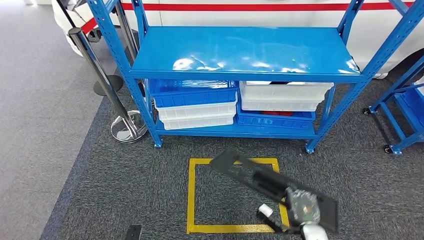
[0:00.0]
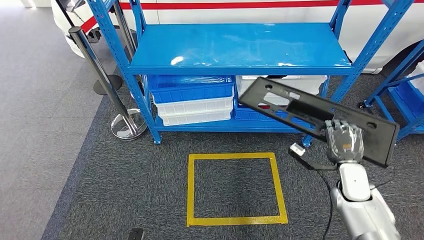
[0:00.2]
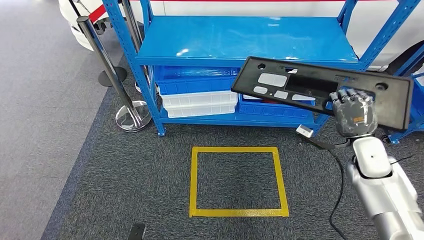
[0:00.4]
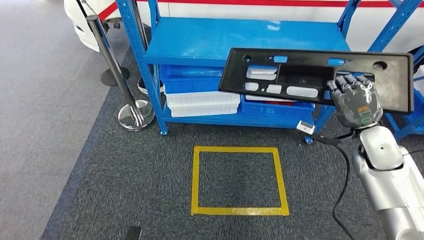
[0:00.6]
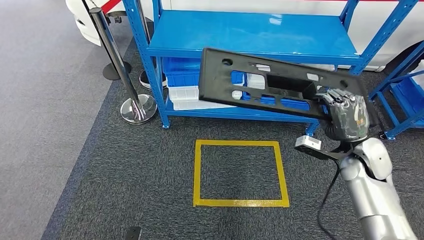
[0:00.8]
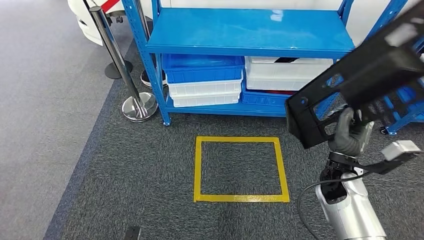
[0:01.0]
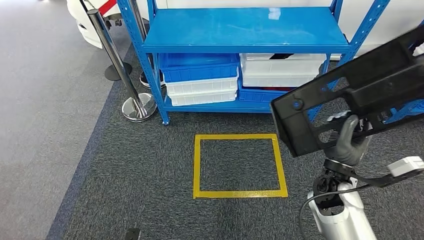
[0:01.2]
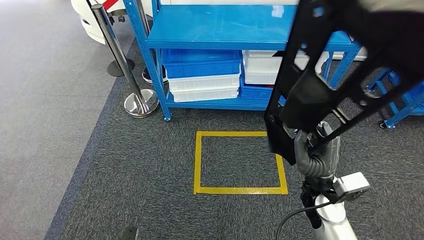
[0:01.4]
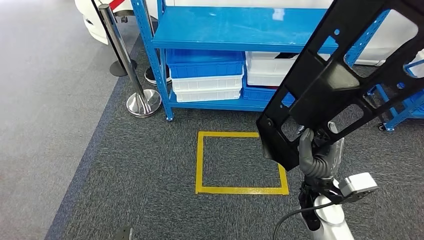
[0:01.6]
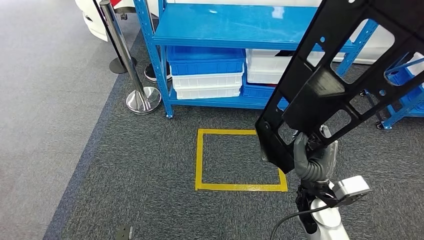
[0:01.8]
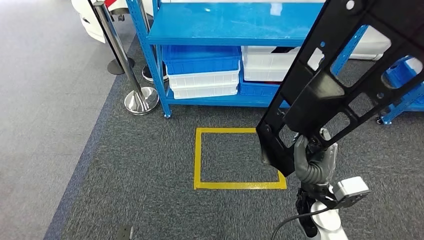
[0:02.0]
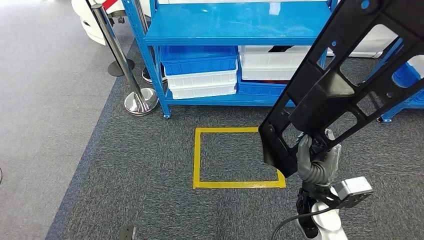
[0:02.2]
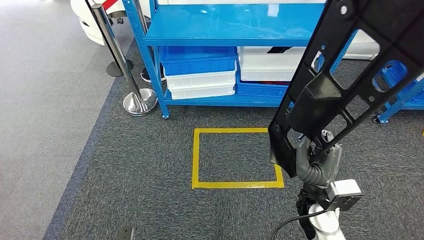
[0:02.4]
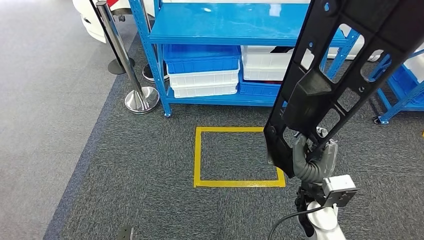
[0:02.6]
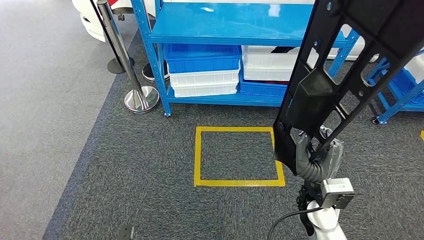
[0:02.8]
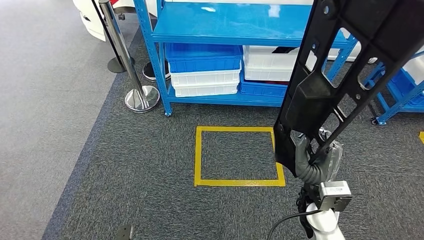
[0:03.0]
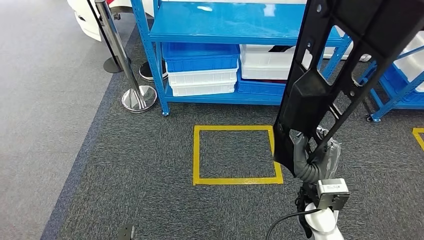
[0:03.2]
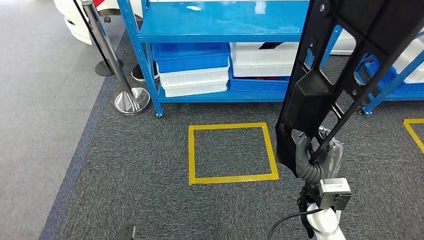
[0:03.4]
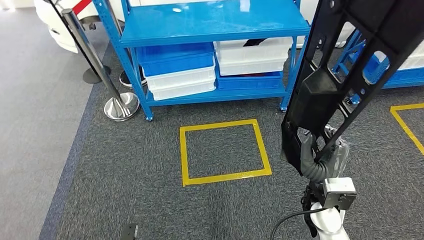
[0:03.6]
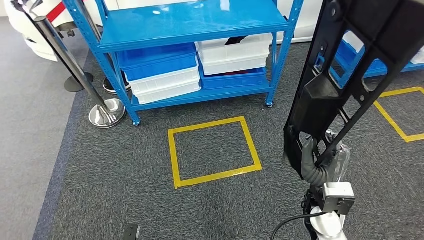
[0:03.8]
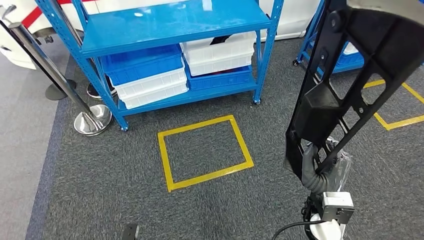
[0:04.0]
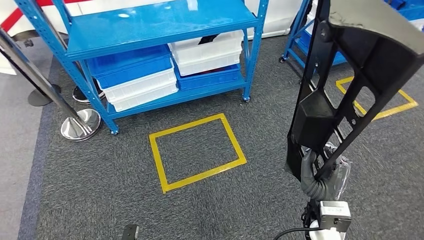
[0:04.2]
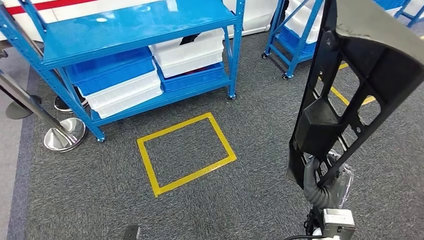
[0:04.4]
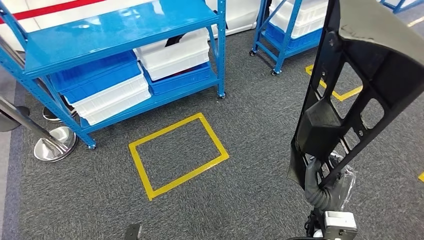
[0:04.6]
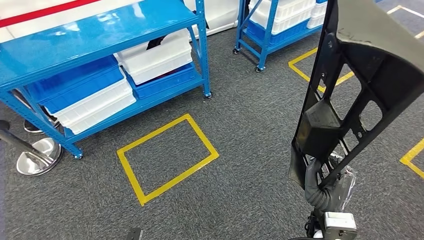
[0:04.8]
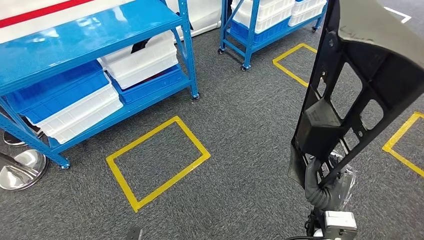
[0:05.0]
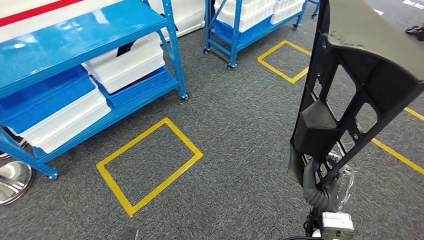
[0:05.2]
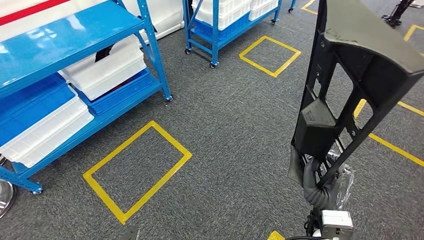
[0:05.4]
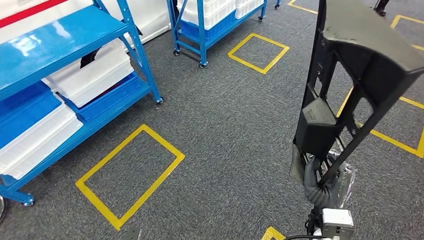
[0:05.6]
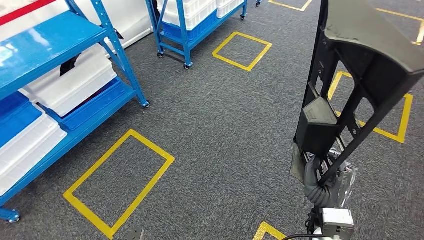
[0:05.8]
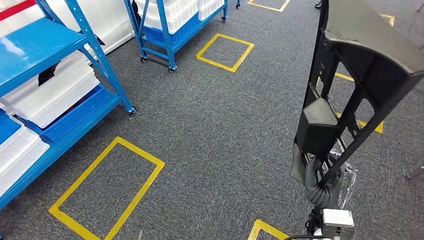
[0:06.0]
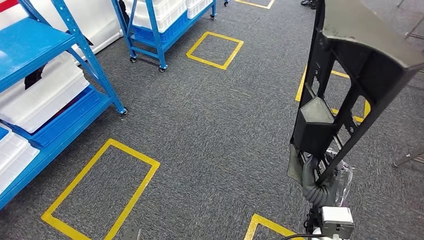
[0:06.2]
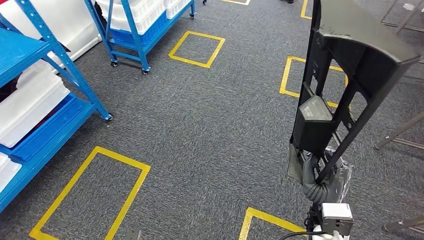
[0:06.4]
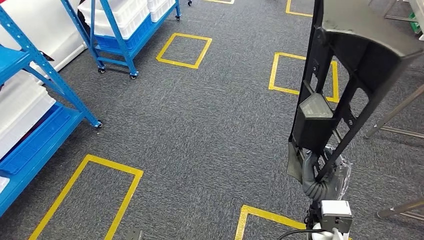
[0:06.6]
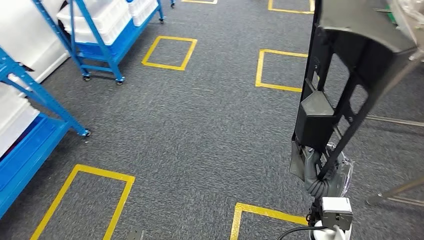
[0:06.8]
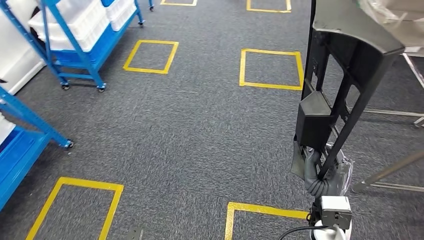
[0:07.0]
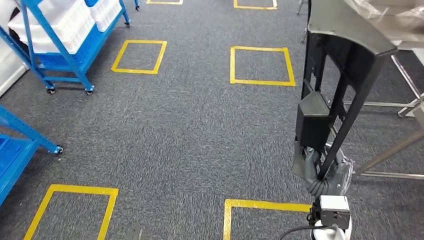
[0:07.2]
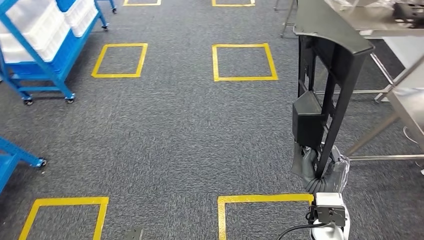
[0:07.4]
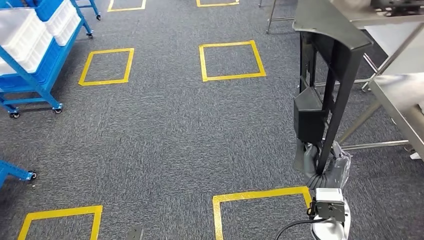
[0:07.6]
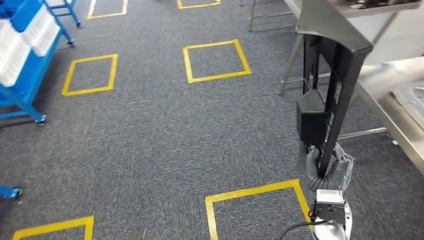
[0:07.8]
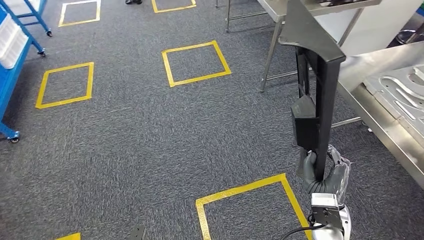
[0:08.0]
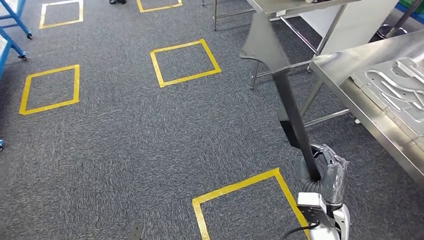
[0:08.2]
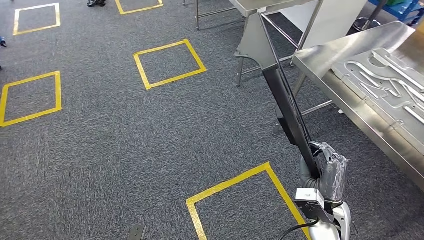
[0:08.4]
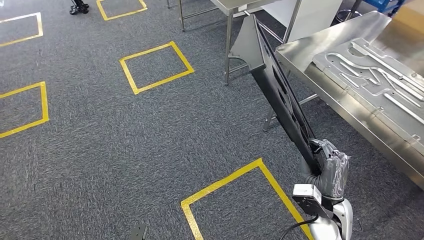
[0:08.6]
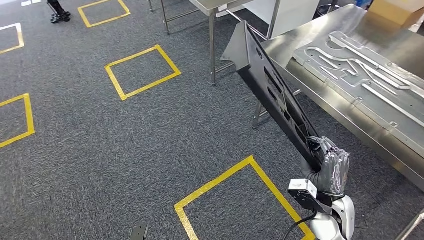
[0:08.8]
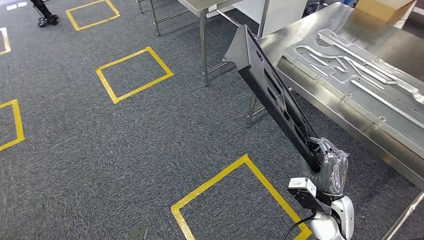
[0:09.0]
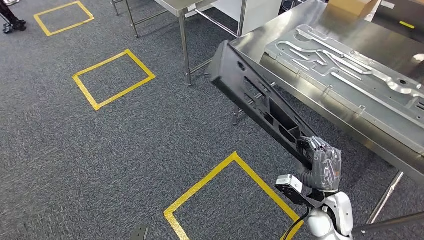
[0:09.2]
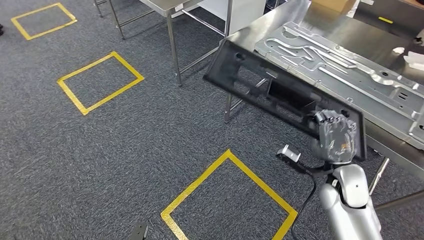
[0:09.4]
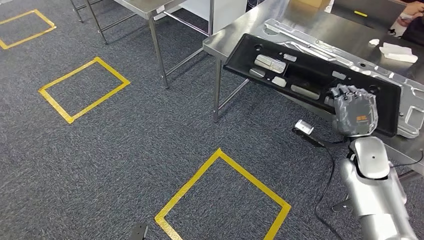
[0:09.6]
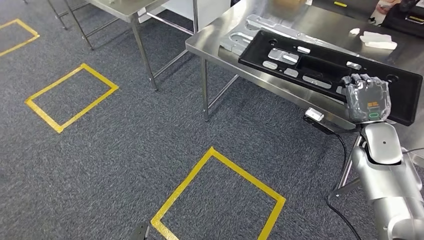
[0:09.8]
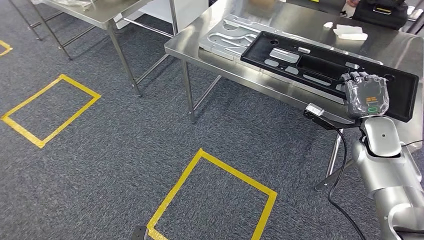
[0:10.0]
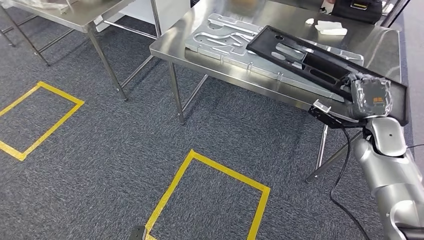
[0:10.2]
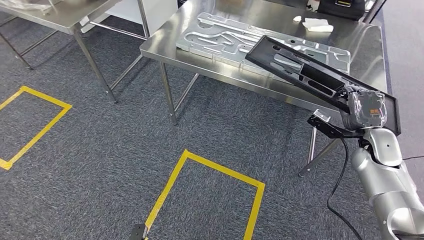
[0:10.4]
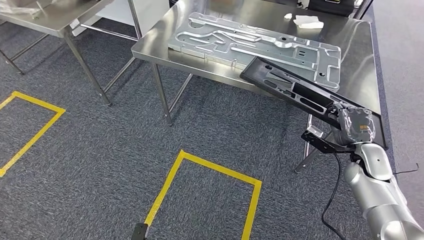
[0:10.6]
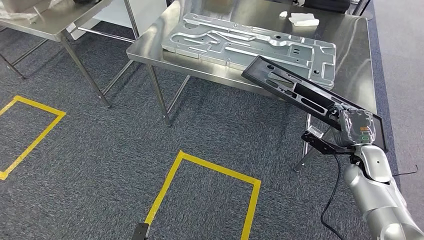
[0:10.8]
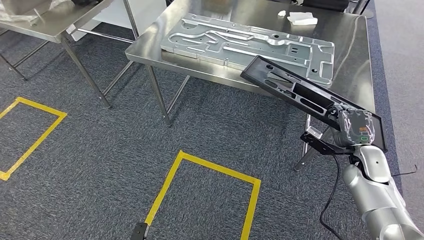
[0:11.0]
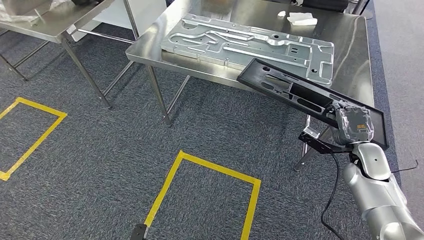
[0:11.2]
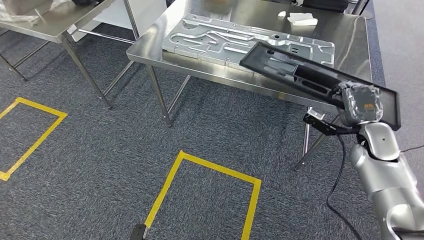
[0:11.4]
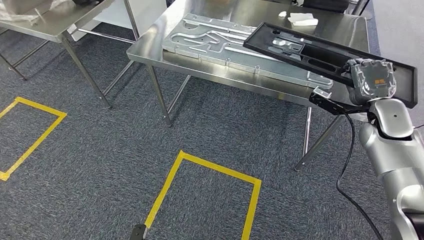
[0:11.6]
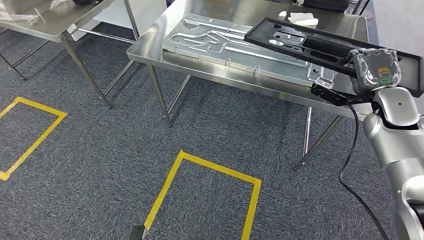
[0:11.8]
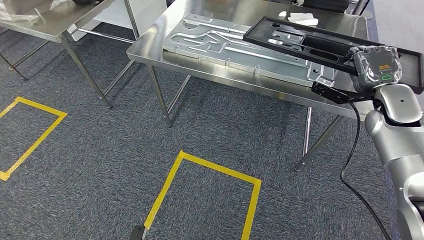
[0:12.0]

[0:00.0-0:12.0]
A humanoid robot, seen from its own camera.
Step, 0:00.0 to 0:11.8: Move the large material to the workbench.

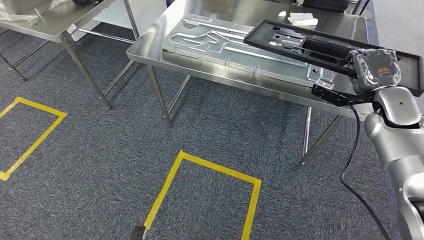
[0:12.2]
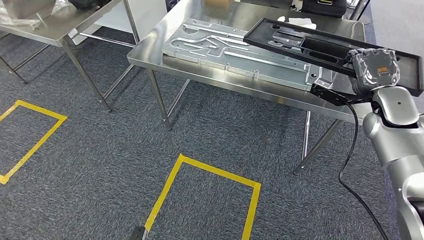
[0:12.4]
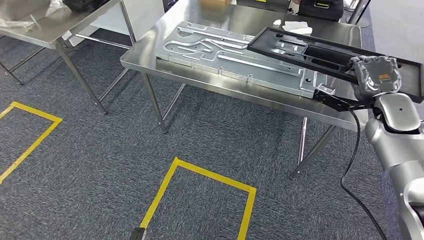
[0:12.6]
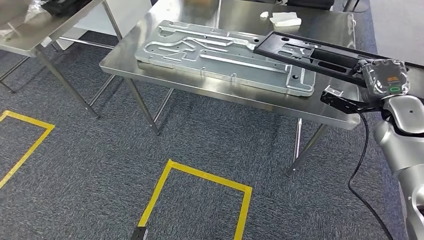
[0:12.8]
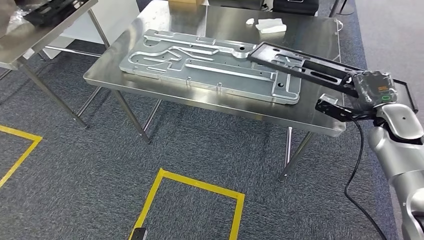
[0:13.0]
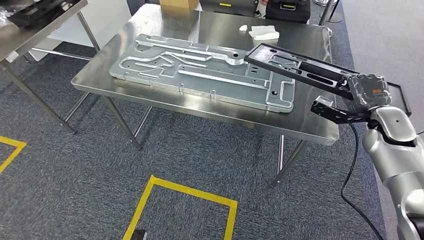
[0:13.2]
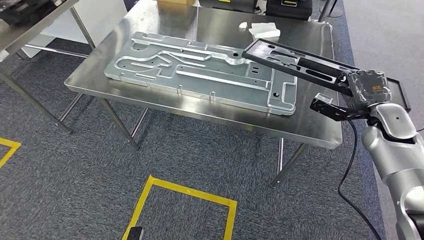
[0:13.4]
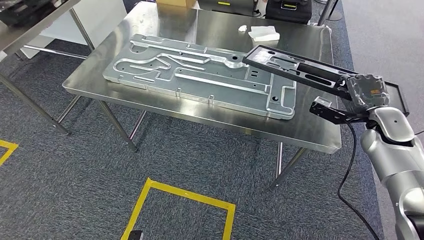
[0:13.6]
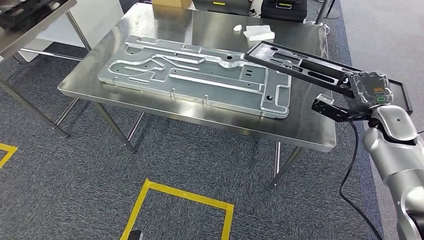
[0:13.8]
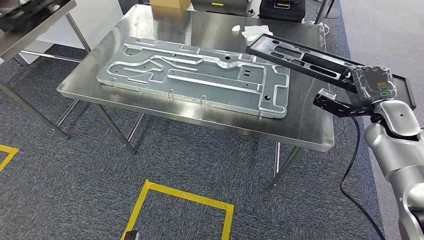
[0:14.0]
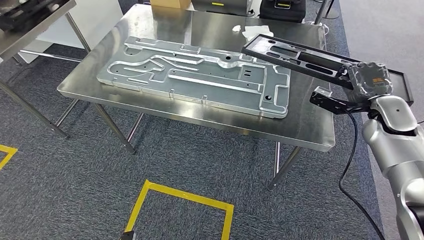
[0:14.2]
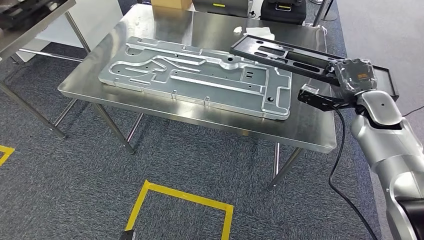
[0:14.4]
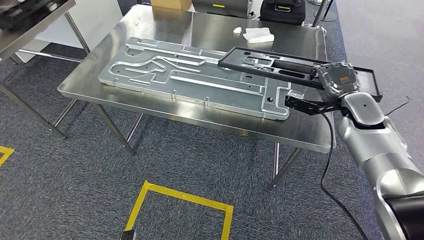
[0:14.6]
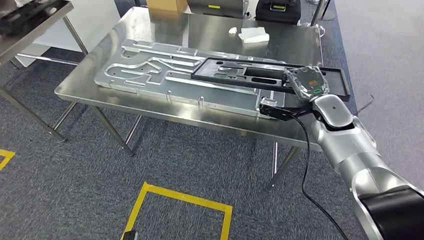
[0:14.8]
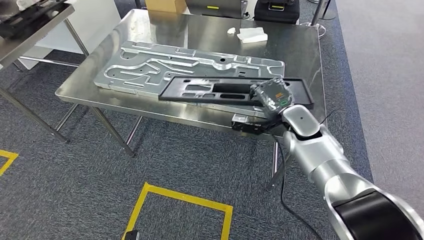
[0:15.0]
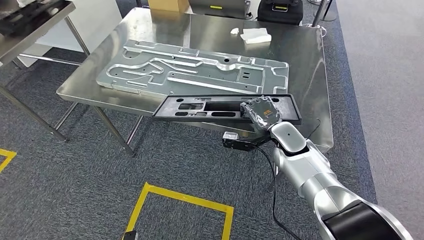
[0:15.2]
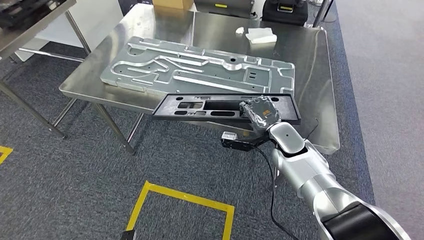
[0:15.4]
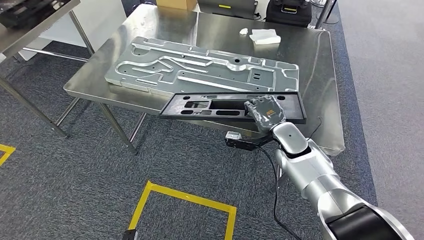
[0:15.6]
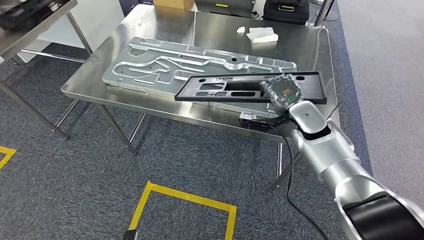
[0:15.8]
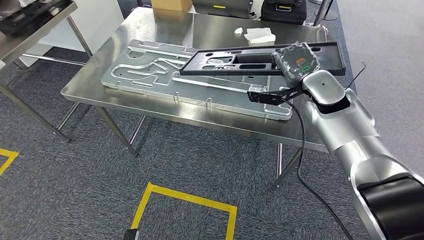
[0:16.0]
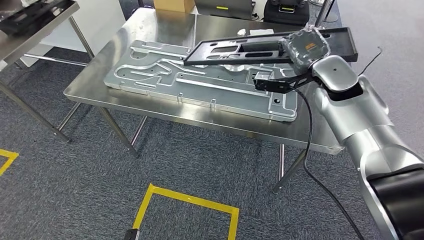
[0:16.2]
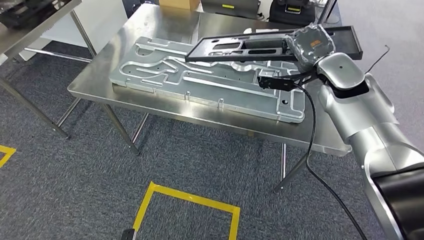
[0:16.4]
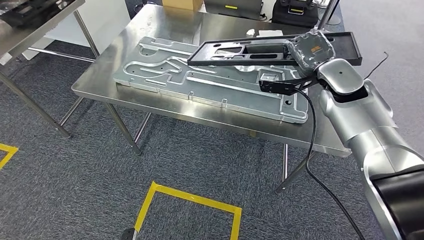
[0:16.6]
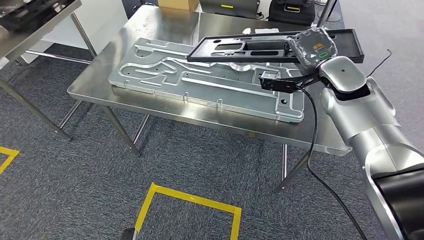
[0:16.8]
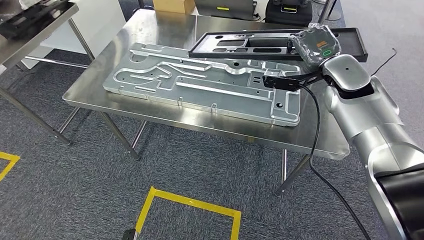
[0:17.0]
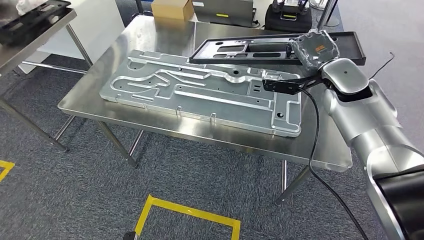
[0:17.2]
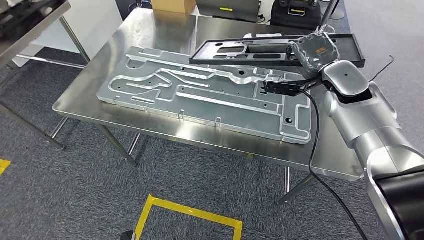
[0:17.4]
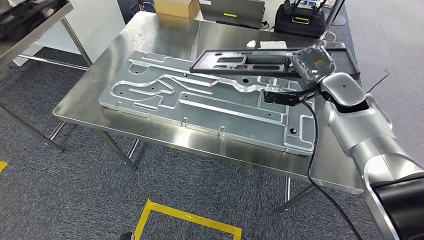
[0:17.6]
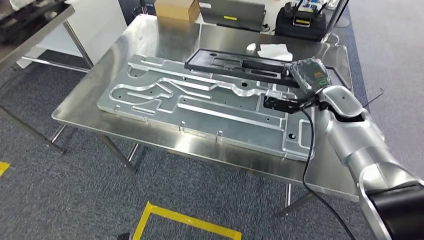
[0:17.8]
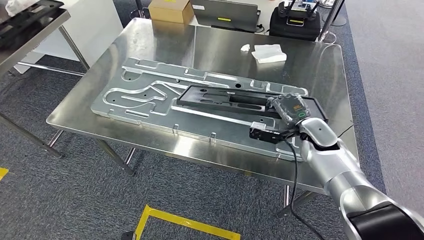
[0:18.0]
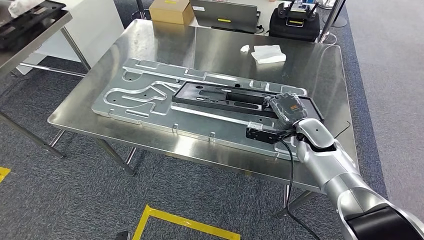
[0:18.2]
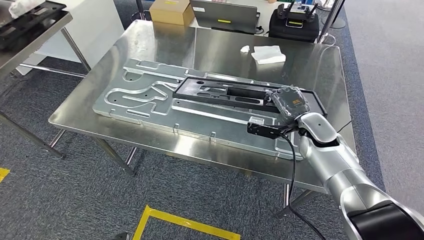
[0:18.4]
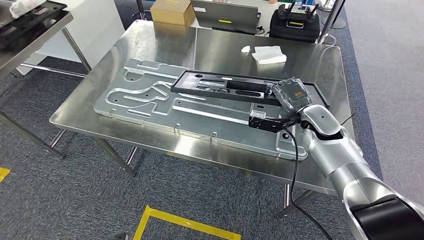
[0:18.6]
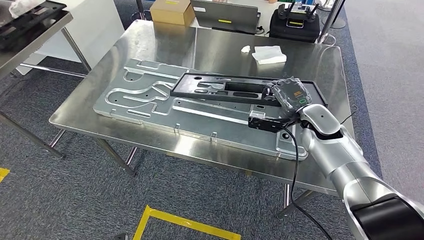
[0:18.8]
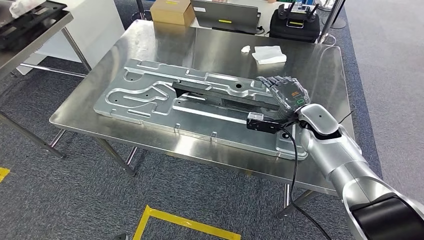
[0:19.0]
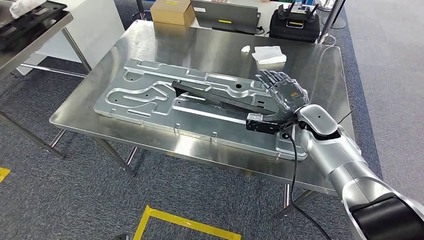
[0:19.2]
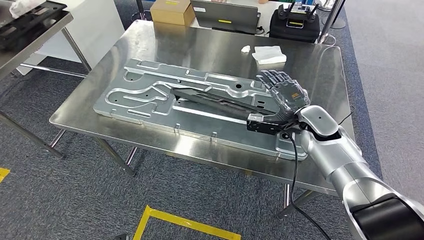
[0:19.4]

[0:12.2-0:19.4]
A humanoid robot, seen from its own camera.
0:18.0 to 0:19.4: There are only small adjustments of the hands.
